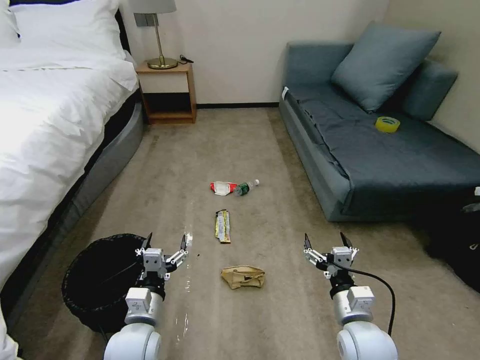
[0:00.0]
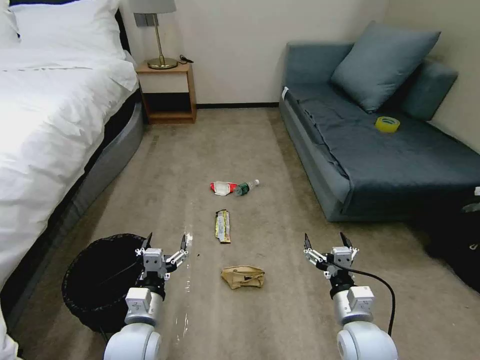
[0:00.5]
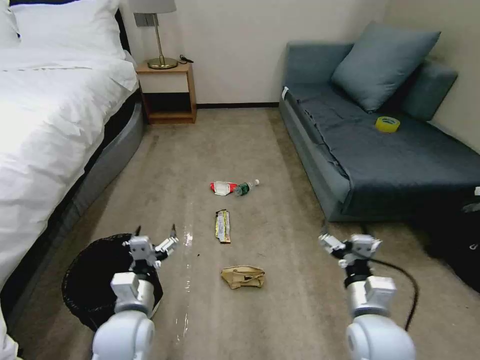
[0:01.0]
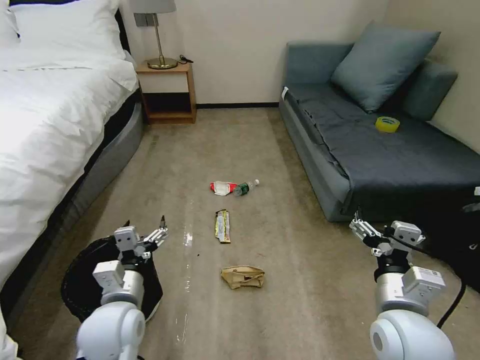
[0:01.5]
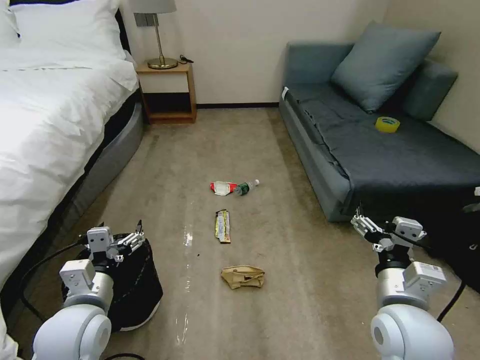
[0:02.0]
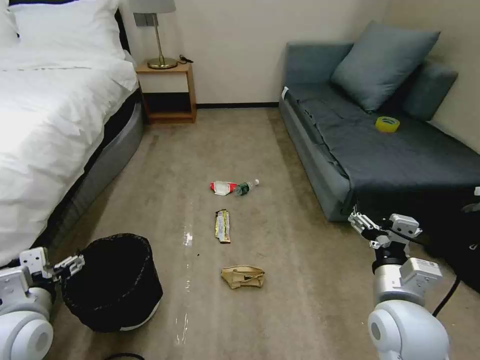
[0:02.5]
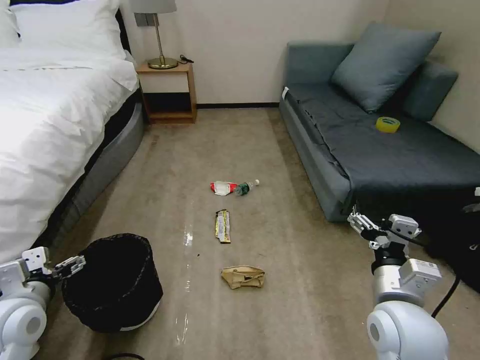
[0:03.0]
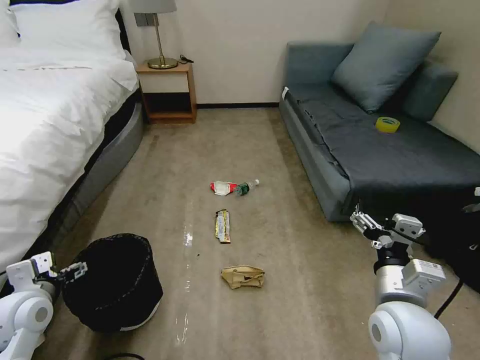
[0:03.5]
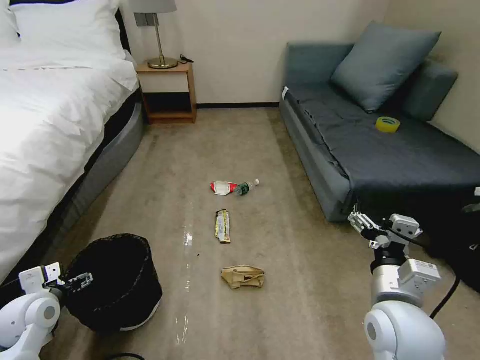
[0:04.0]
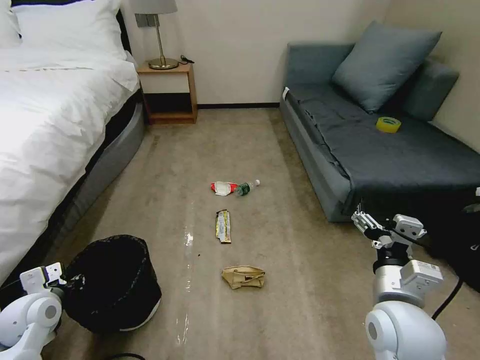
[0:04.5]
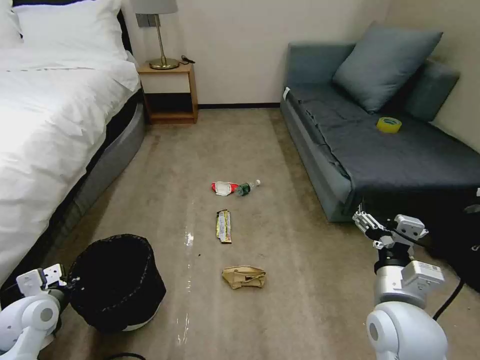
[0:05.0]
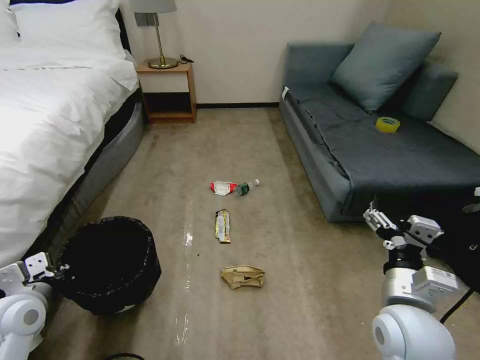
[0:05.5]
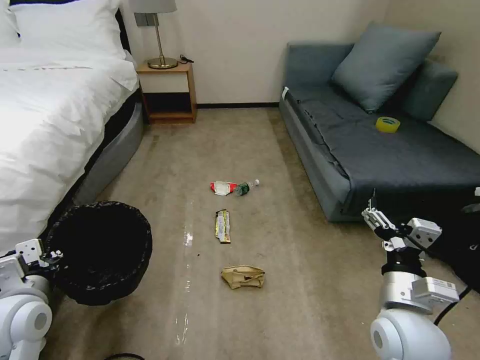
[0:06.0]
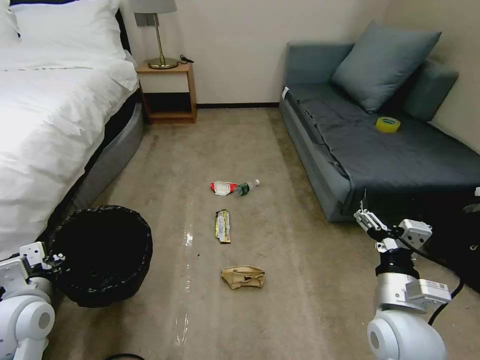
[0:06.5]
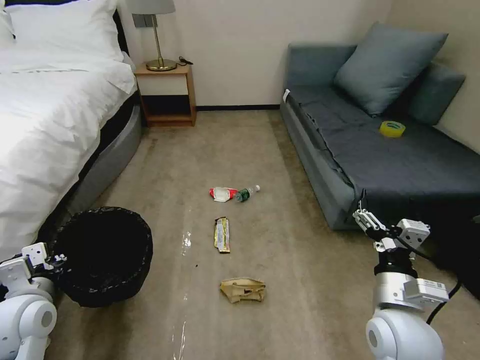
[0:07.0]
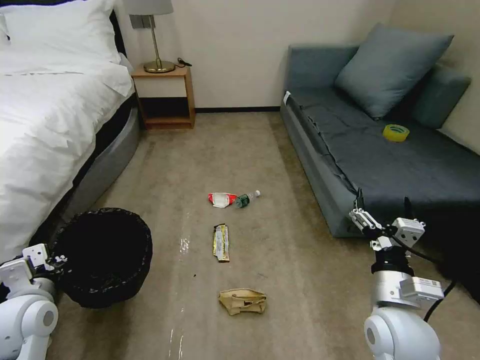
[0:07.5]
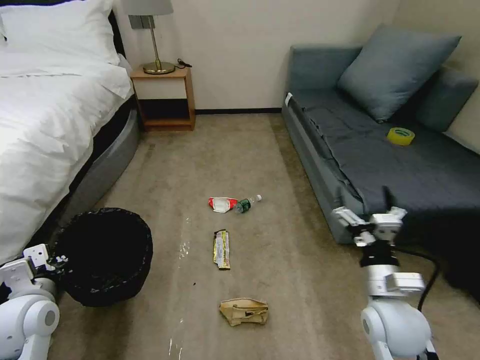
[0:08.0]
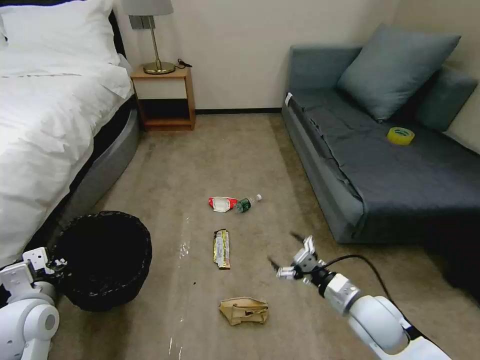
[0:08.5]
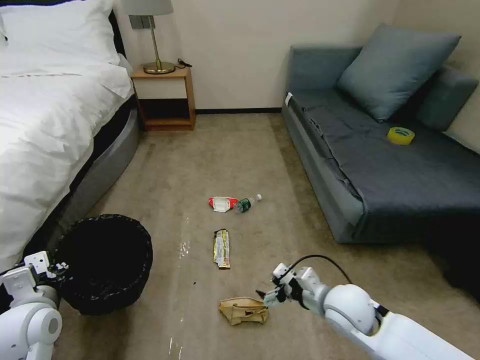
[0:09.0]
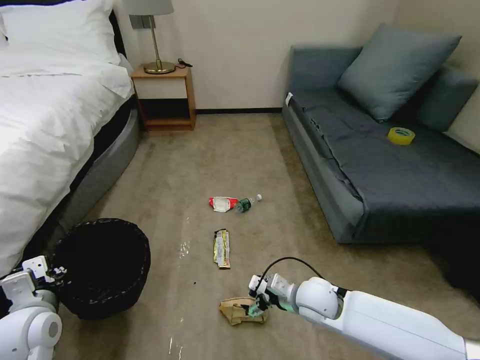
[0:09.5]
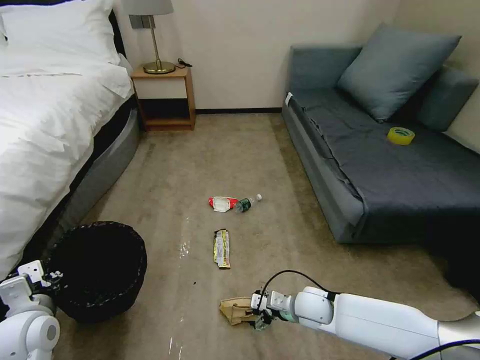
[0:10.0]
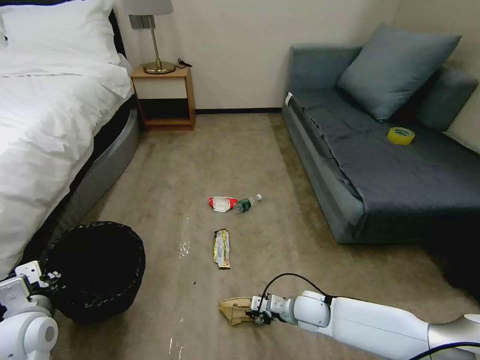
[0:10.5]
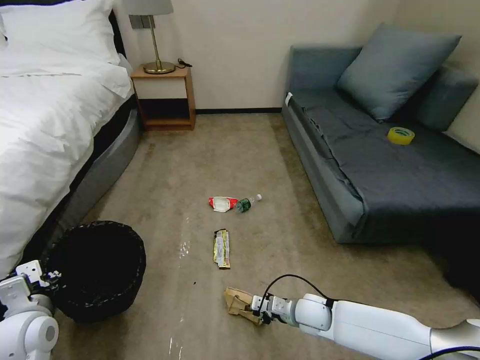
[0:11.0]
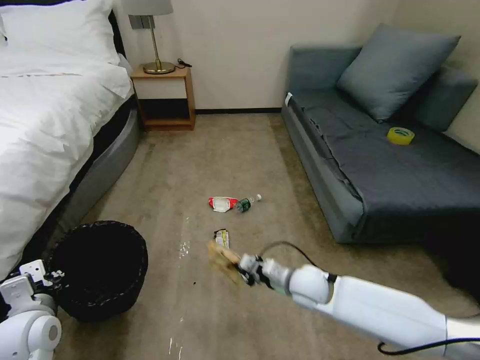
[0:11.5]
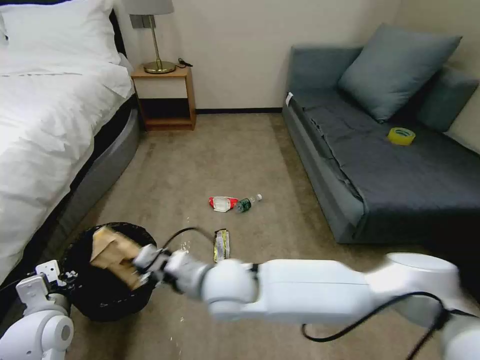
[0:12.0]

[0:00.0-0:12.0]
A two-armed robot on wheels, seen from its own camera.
Task of the whole recording: Pick up the trash bin, then pick up the garbage on the floor and place it into the trash bin.
0:02.0 to 0:04.0: The left gripper shifts roughly 15 cm to the left and downward.
0:04.0 to 0:06.0: The left gripper shifts roughly 10 cm upward and to the right, and closes.
0:08.0 to 0:10.0: The right gripper goes roughly 20 cm downward, to the left and forward.
0:10.0 to 0:12.0: The right gripper shifts roughly 30 cm to the left and upward, and closes up.

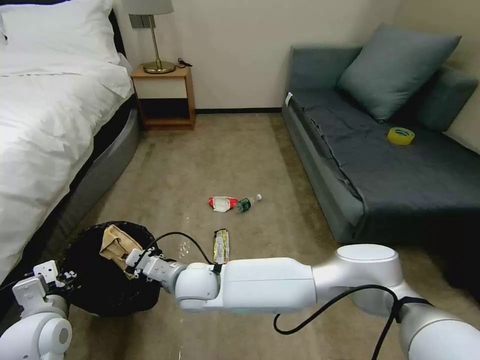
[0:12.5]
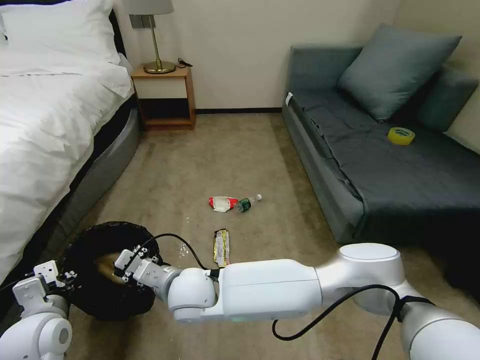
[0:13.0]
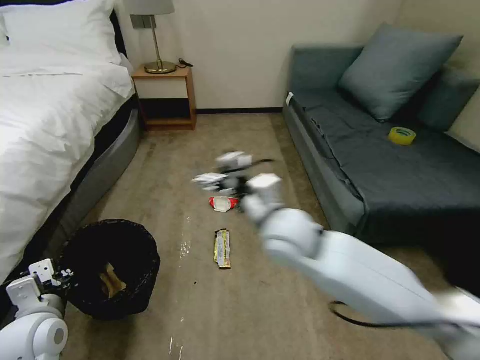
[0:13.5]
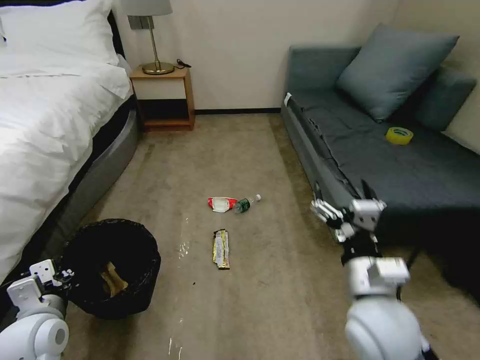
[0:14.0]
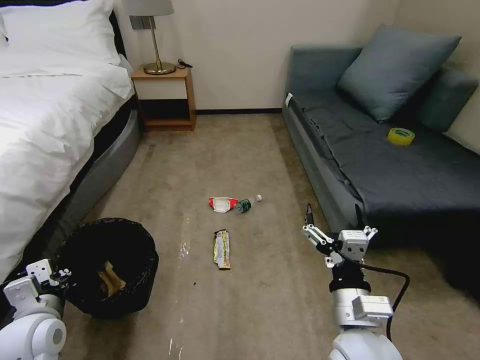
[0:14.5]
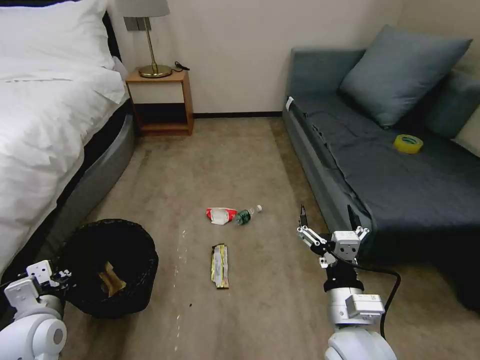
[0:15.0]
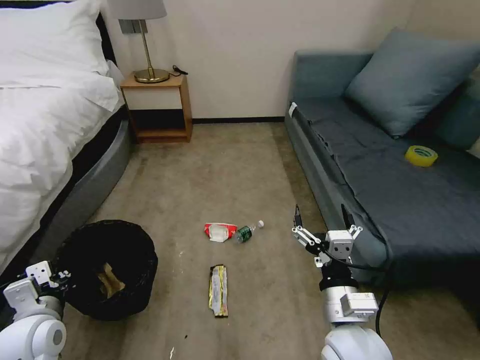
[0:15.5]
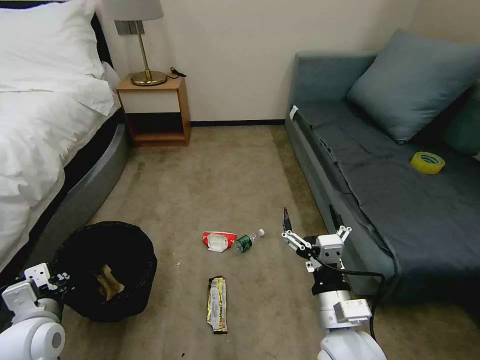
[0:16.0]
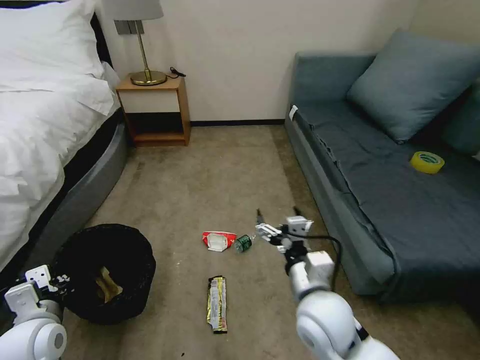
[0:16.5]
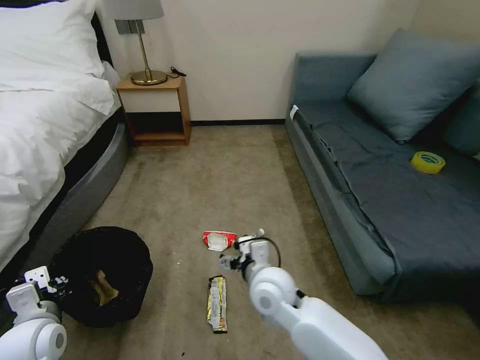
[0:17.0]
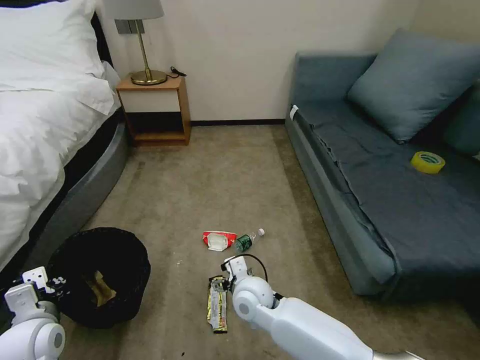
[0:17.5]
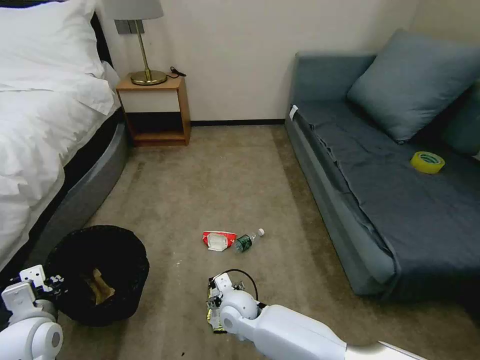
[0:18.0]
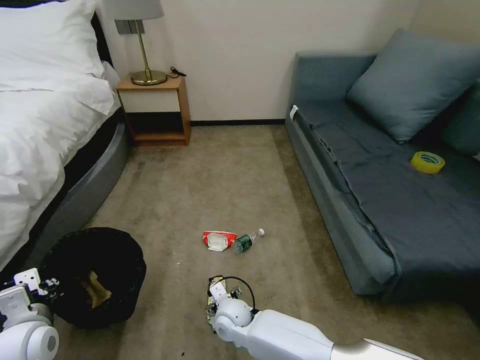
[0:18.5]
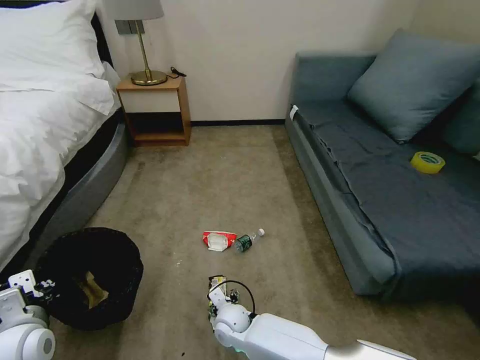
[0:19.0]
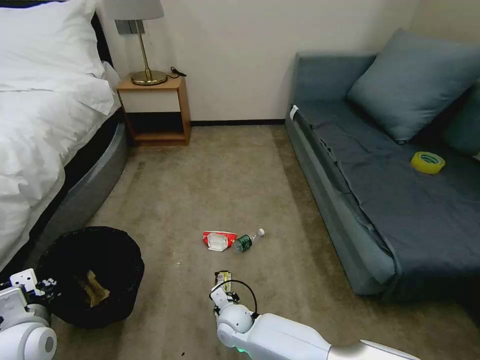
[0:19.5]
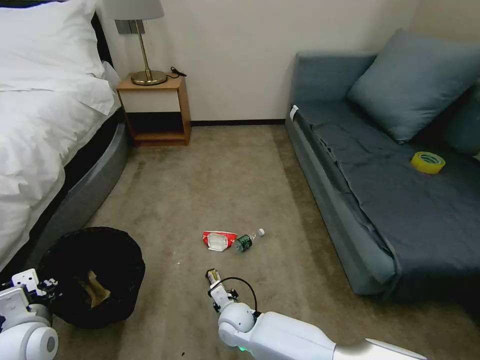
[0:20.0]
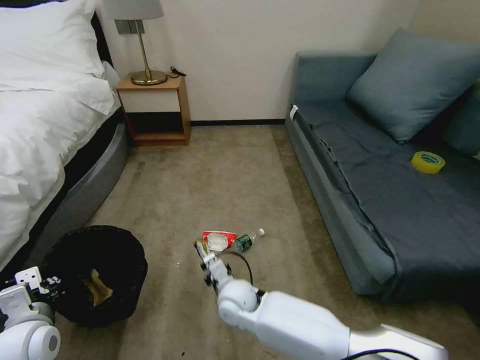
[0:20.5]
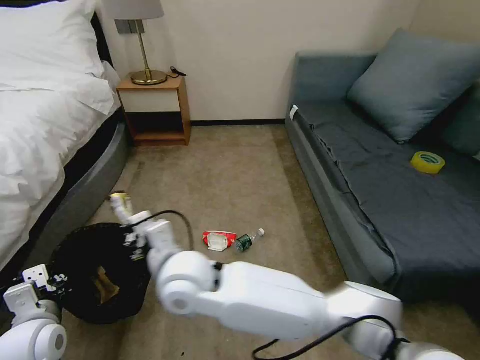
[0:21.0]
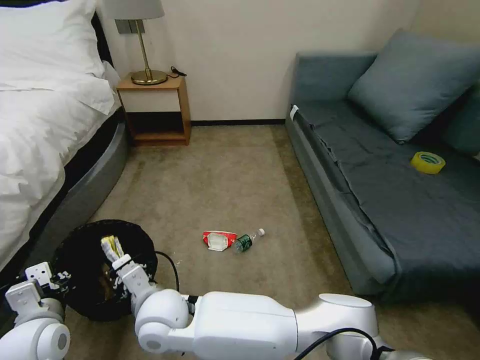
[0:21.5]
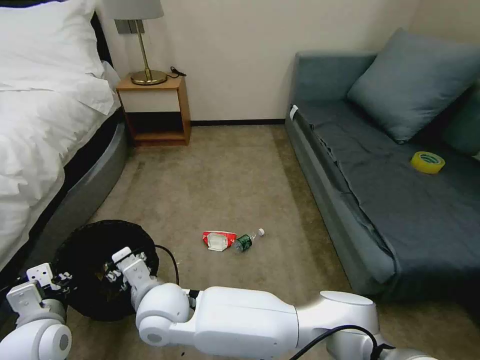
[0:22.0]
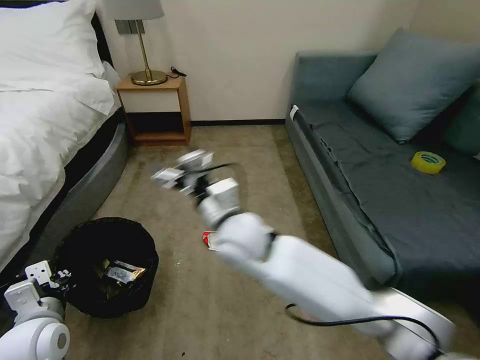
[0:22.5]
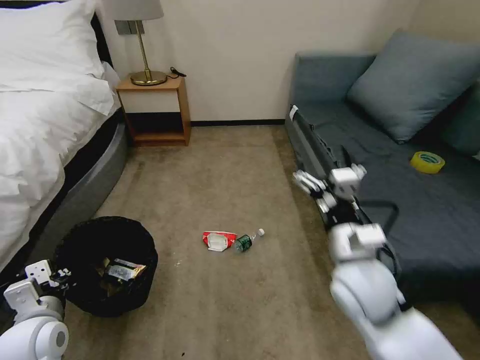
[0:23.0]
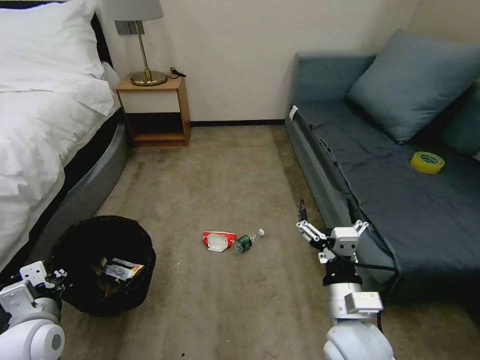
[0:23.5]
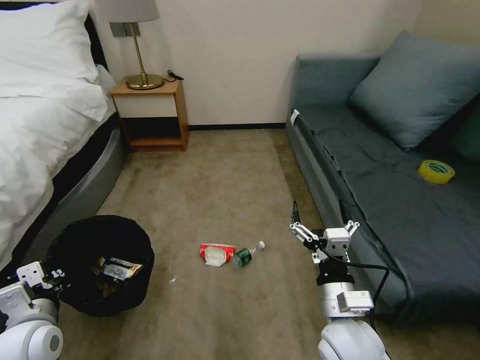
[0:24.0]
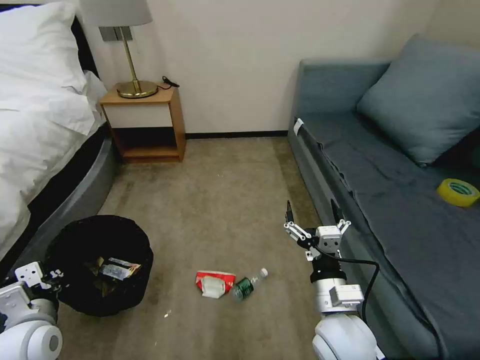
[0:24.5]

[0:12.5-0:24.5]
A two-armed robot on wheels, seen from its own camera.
Task of the whole recording: Pick up the trash bin, then pick up the garbage on the floor and place it into the trash bin.
0:12.5 to 0:14.5: The right gripper goes some 30 cm to the right and backward, and opens its fingers.
0:14.5 to 0:16.5: The right gripper heads forward, covering about 5 cm.
0:16.5 to 0:18.5: The right gripper travels downward and to the left by roughly 25 cm.
0:18.5 to 0:20.5: The right gripper travels upward by some 10 cm, and closes its fingers.
0:20.5 to 0:22.5: The right gripper swings up and down, approximately 20 cm each way, with 2 reversals, and opens its fingers.
0:22.5 to 0:24.5: The right gripper moves to the right, backward and downward, about 25 cm.

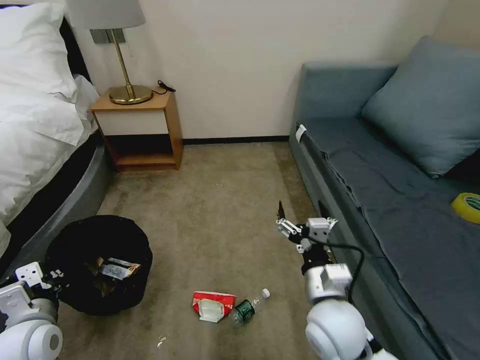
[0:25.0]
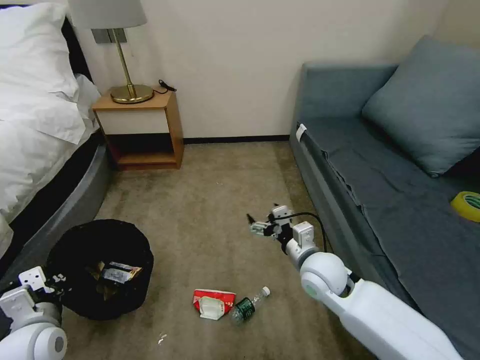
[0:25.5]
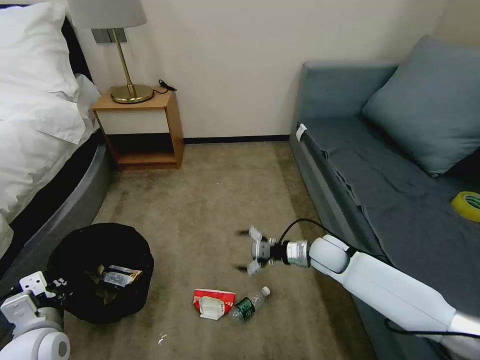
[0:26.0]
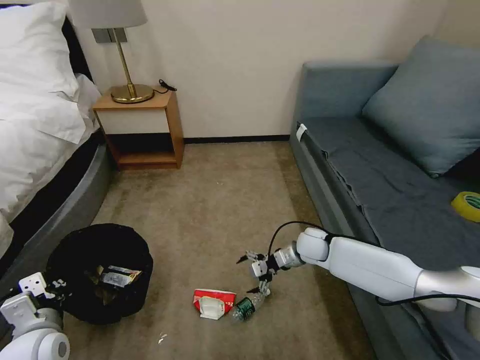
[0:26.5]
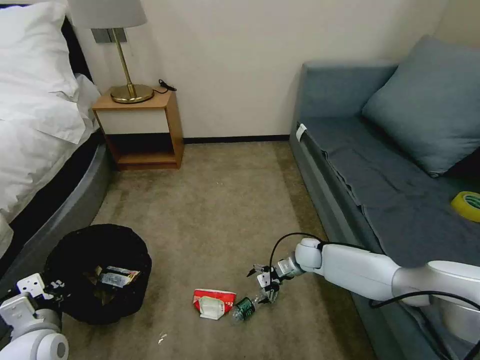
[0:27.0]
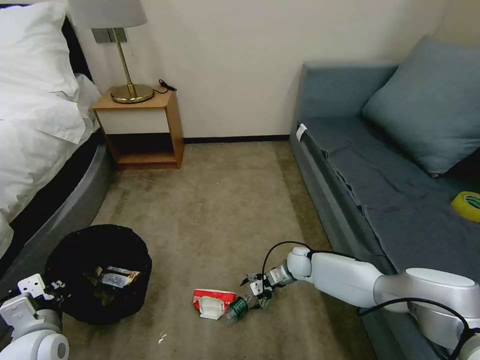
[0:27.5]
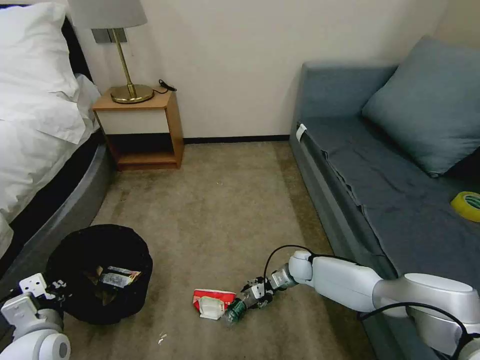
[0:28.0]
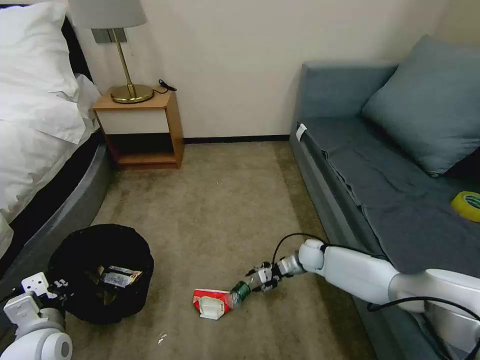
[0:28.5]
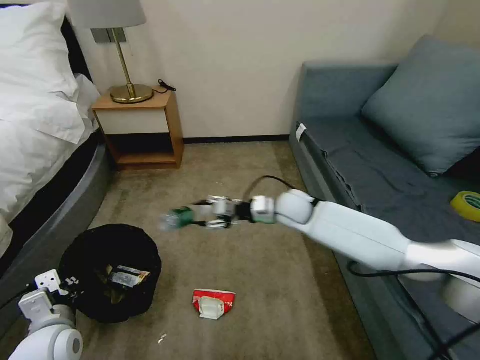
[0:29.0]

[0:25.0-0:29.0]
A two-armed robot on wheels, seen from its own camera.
Task of the whole recording: Pick up the trash bin, then pick up the garbage on the floor and place it into the trash bin.
0:25.0 to 0:27.0: The right gripper moves forward and downward, about 30 cm.
0:27.0 to 0:29.0: The right gripper shifts roughly 20 cm upward and to the left, and closes its fingers.
